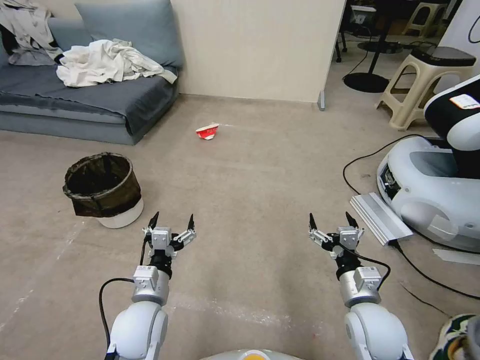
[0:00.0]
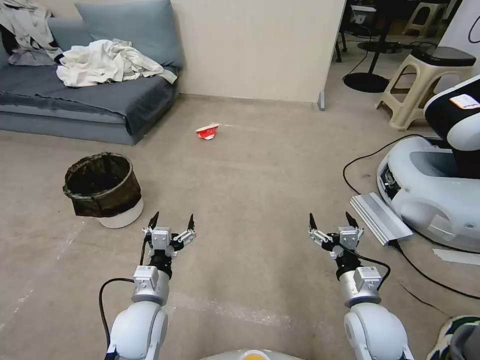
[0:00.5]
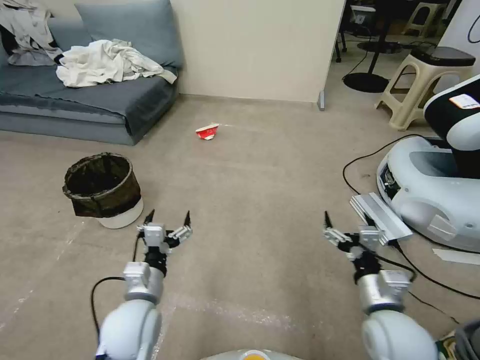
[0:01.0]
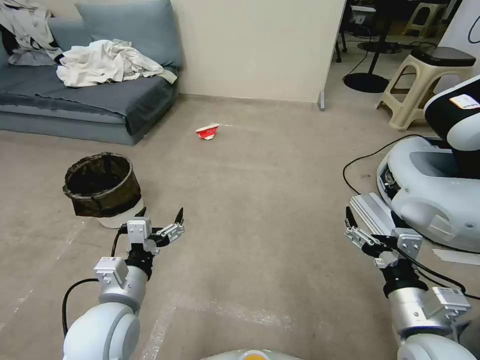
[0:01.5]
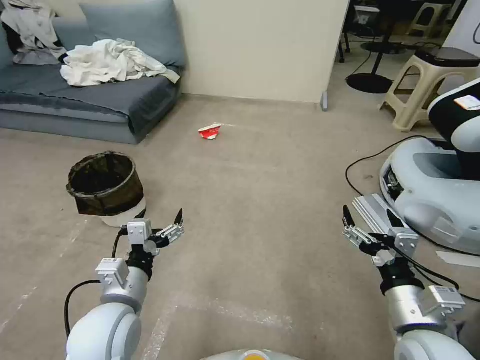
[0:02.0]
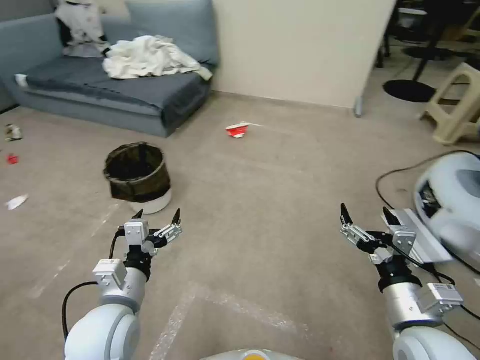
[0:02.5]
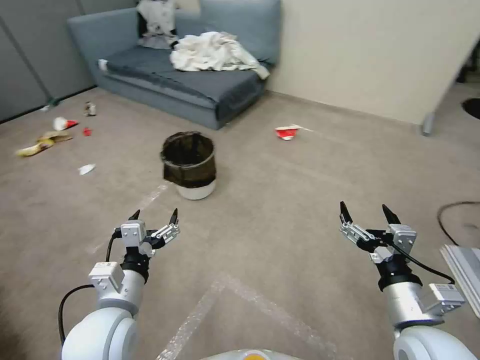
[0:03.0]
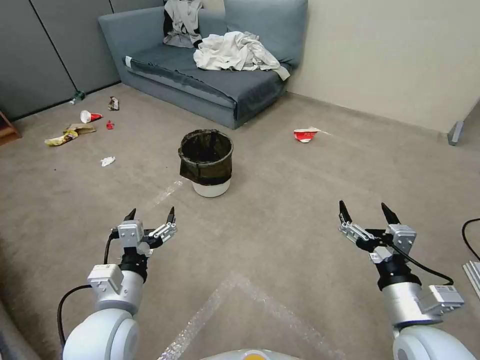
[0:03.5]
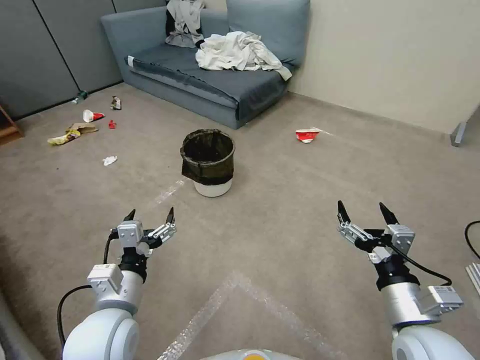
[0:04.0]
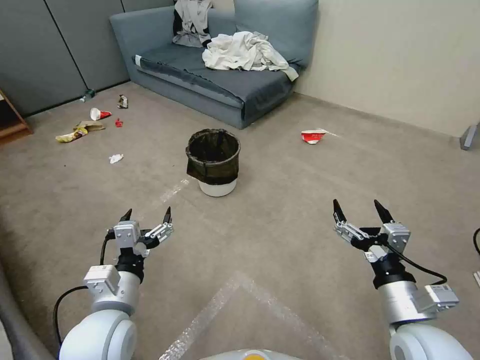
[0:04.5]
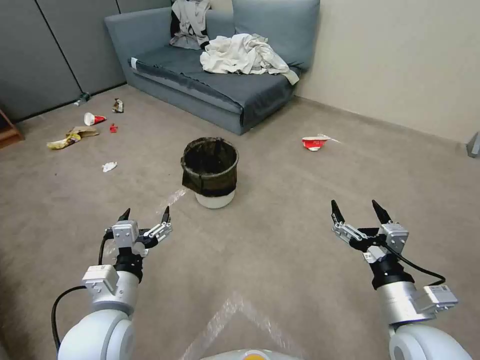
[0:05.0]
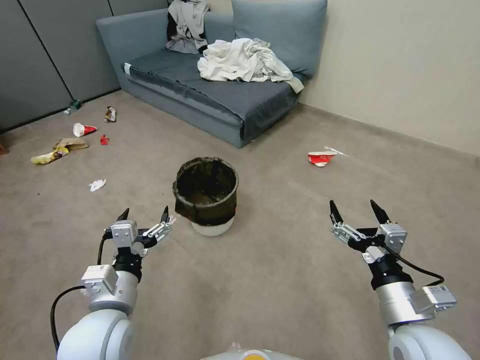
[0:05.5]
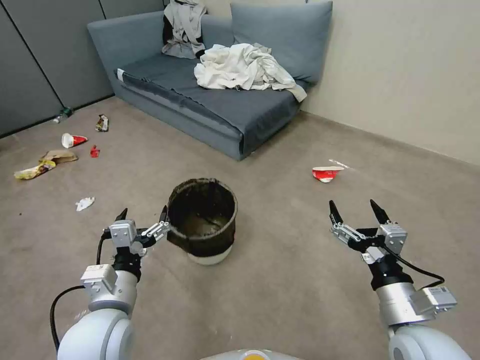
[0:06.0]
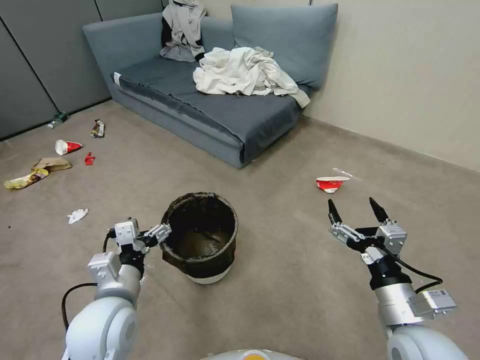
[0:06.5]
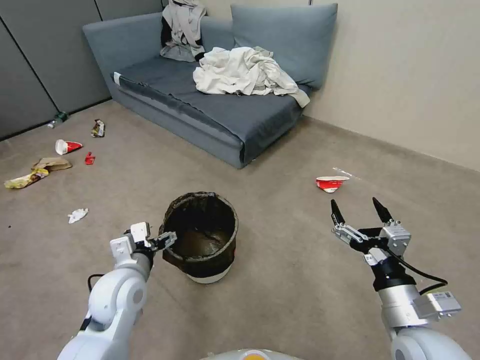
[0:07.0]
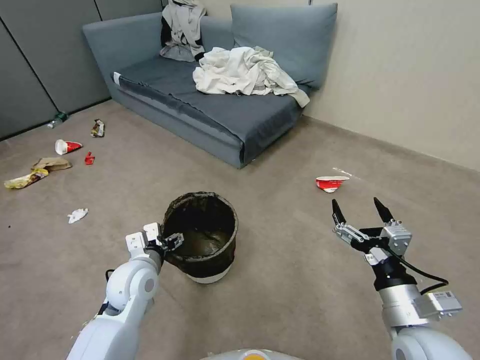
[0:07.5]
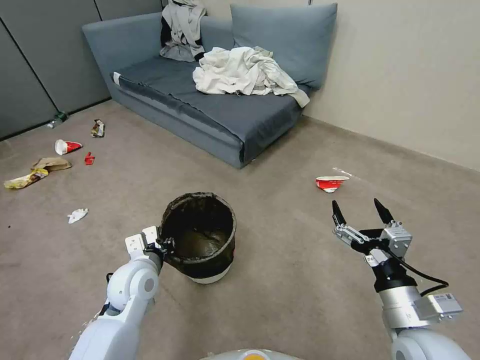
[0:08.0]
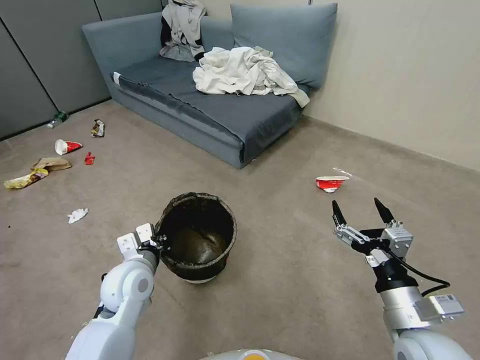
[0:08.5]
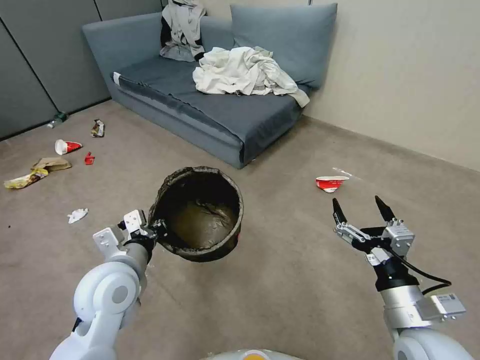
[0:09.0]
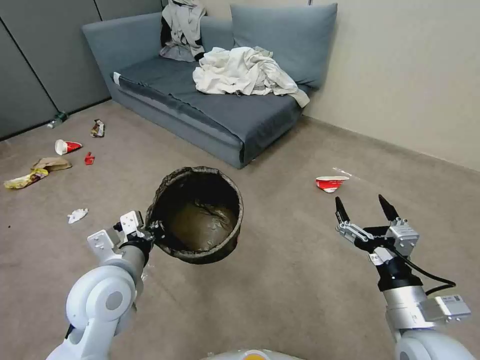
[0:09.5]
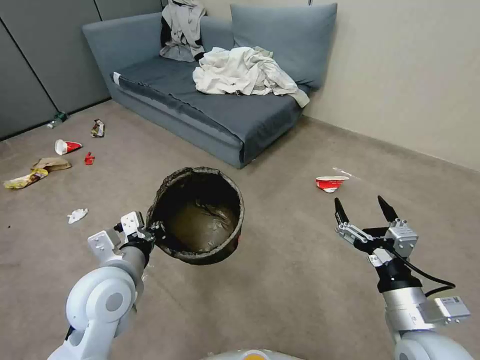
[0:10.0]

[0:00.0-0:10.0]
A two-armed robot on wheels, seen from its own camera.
Task of the whole recording: Pick up the trash can from the floor.
0:06.0 to 0:08.0: The left gripper goes roughly 10 cm forward and downward, and closes its fingers.
0:08.0 to 0:10.0: The left gripper heads upward and backward, covering approximately 10 cm.
